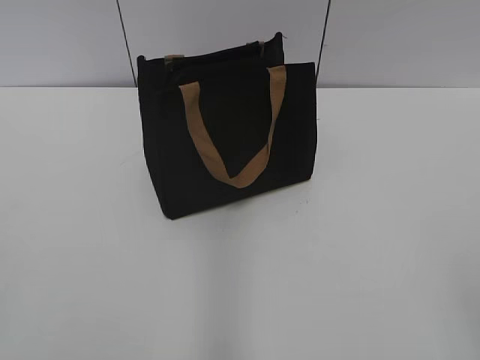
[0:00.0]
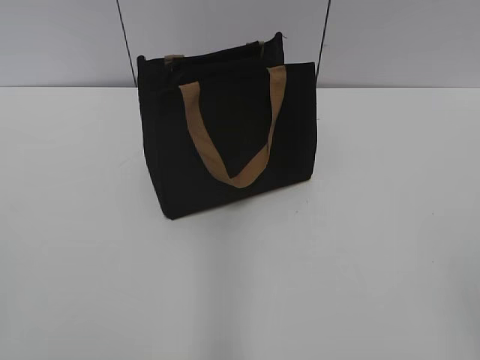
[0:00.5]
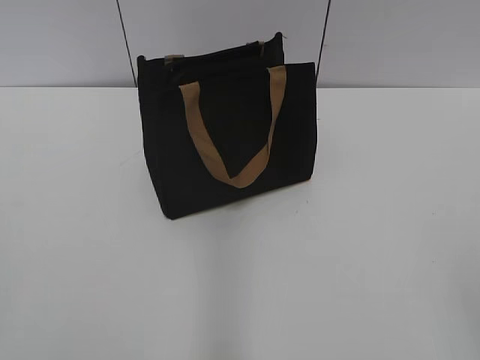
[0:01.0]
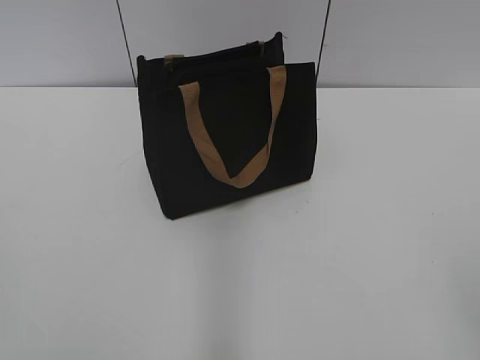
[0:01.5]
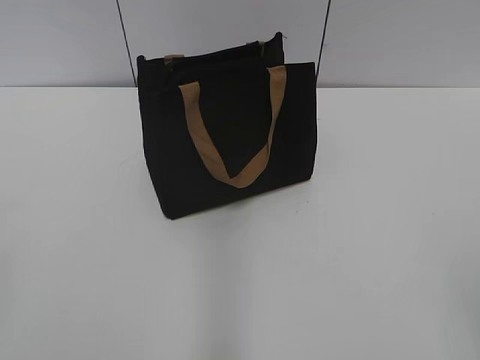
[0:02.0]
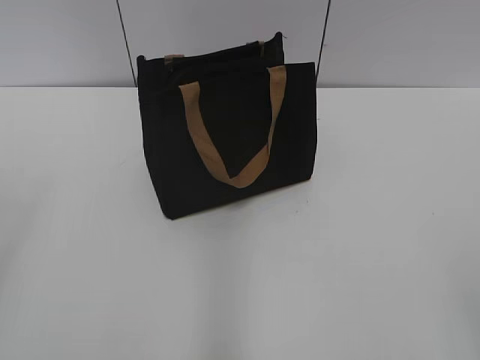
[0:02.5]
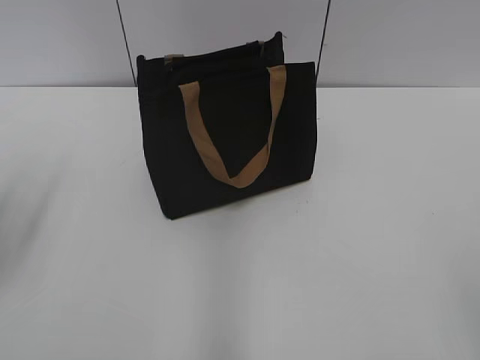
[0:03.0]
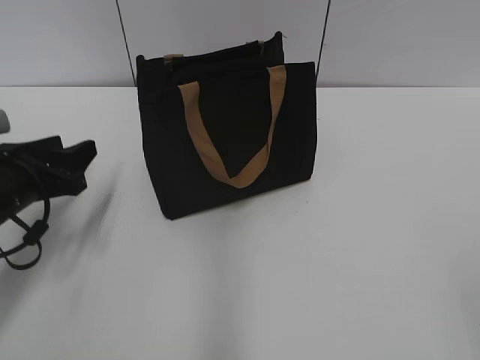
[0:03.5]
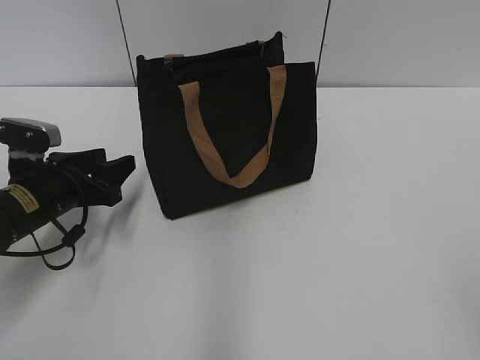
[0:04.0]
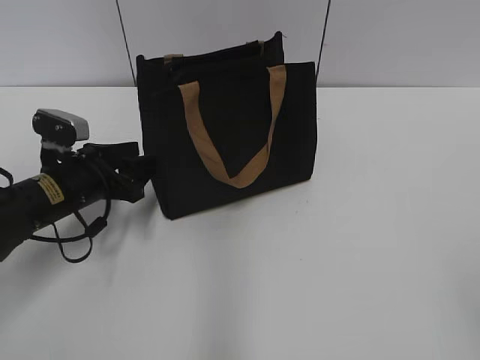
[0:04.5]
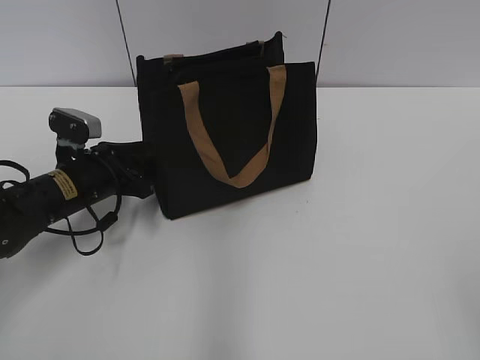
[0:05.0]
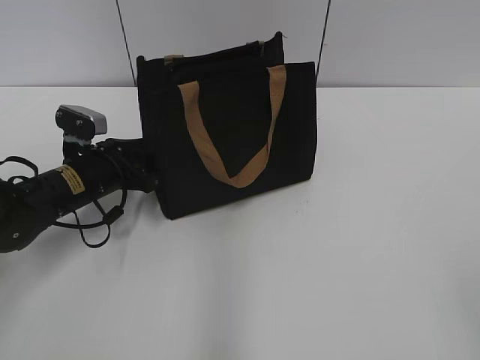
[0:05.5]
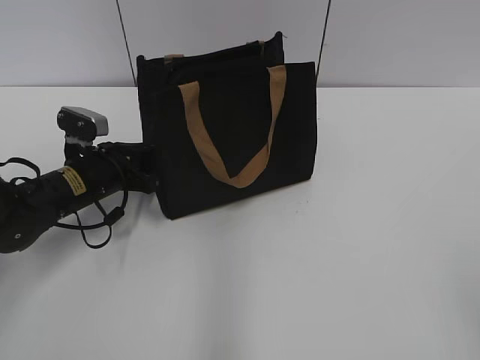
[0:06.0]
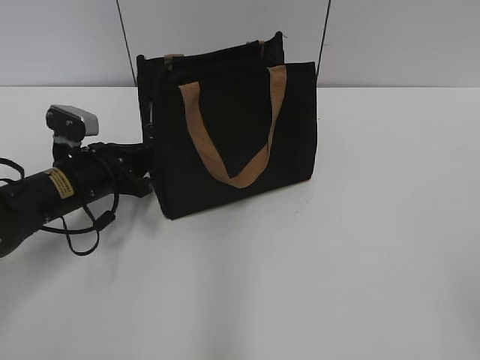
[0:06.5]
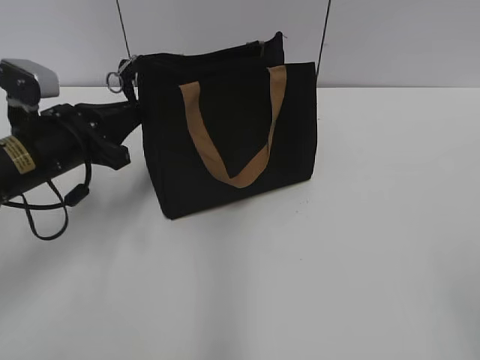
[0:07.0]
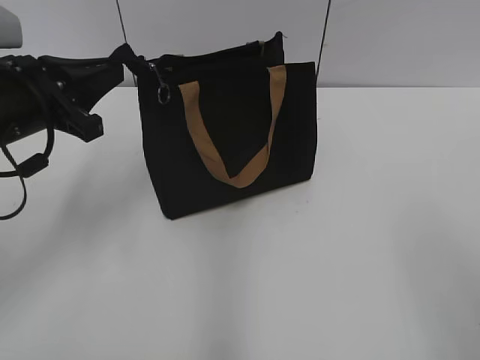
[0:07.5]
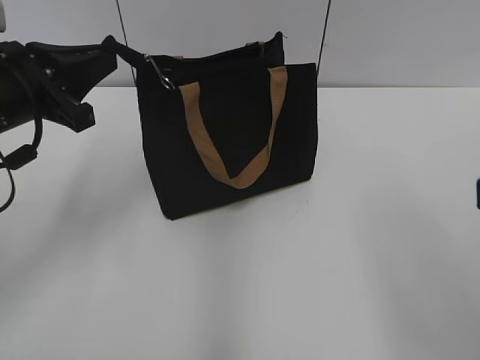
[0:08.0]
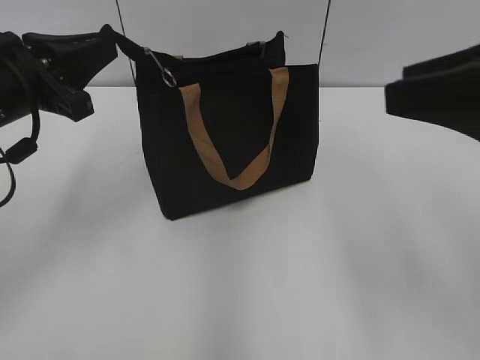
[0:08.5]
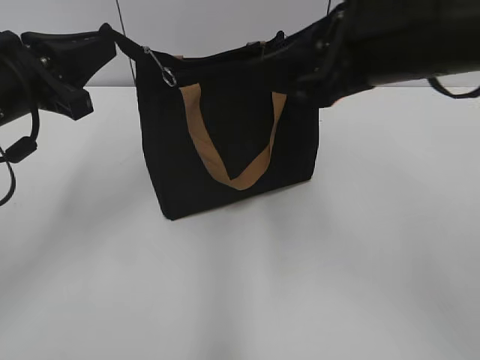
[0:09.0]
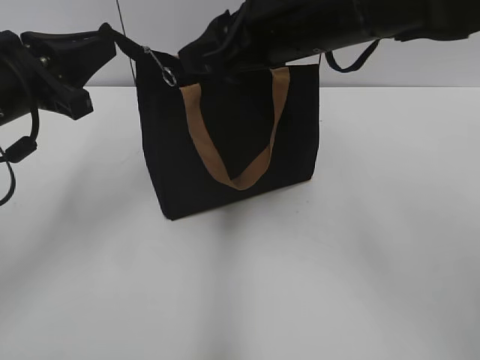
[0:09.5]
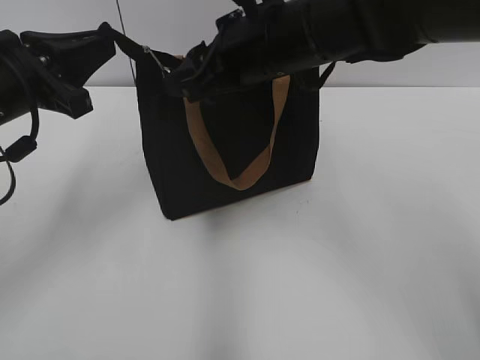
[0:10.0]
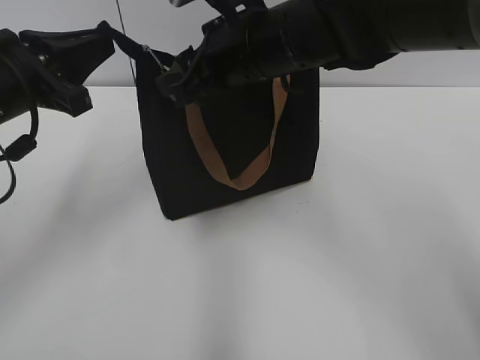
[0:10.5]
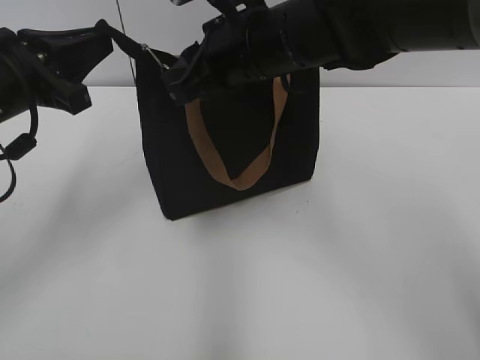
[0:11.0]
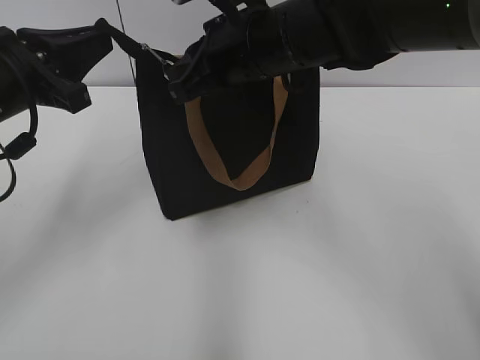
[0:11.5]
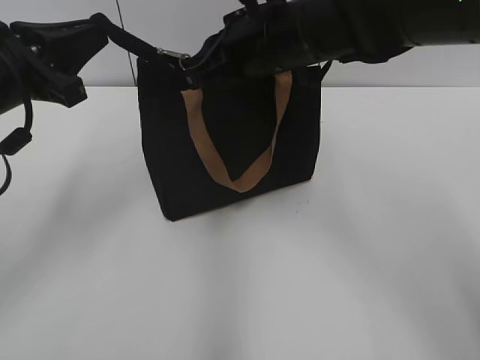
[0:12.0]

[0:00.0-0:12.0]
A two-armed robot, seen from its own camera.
0:02.0 to 0:04.0: The left gripper is displaced forward and downward by about 35 cm.
0:04.0 to 0:06.0: The left gripper is displaced forward by about 5 cm, and closes its fingers.
0:06.0 to 0:08.0: The left gripper shifts about 20 cm upward and backward. Meanwhile the right gripper goes roughly 10 cm forward.
0:08.0 to 0:10.0: The right gripper travels forward and to the left by approximately 30 cm.
0:10.0 to 0:12.0: The right gripper closes.

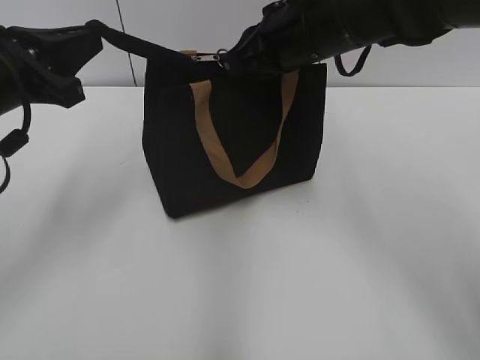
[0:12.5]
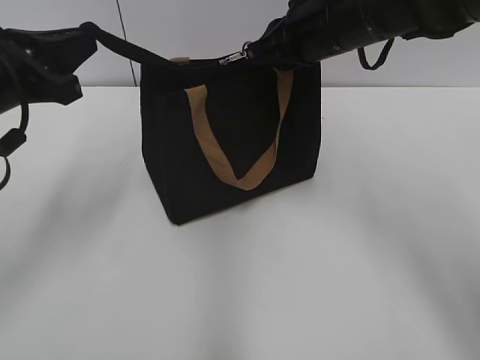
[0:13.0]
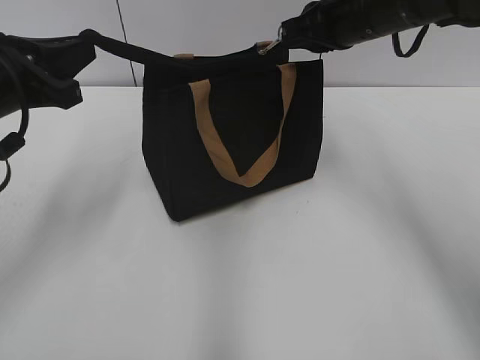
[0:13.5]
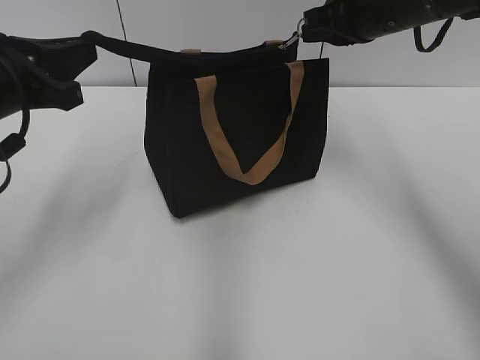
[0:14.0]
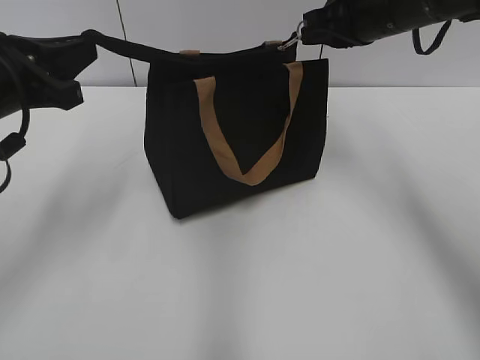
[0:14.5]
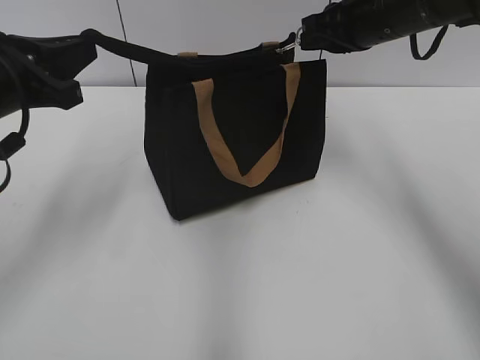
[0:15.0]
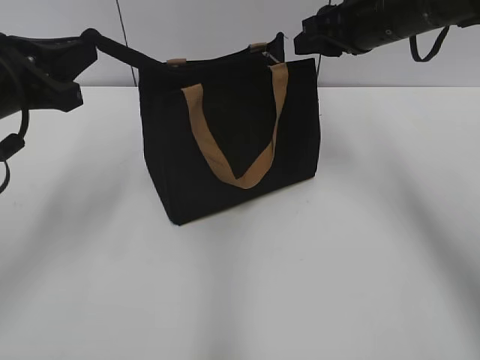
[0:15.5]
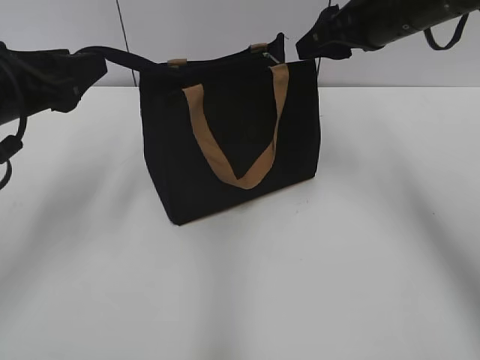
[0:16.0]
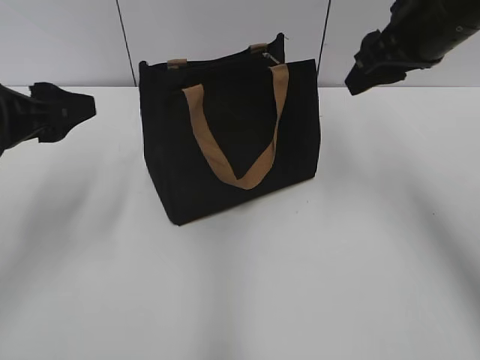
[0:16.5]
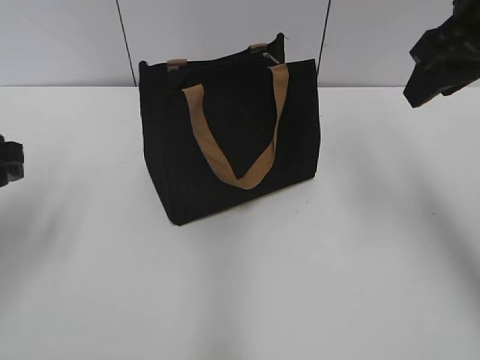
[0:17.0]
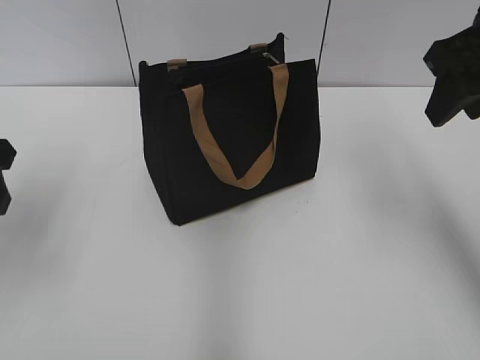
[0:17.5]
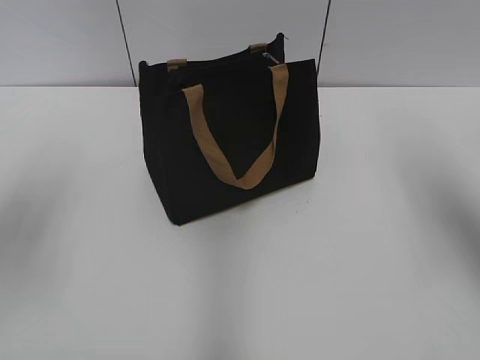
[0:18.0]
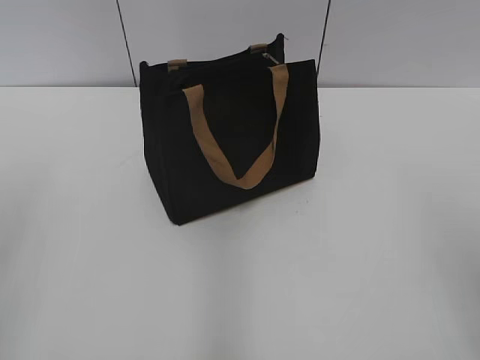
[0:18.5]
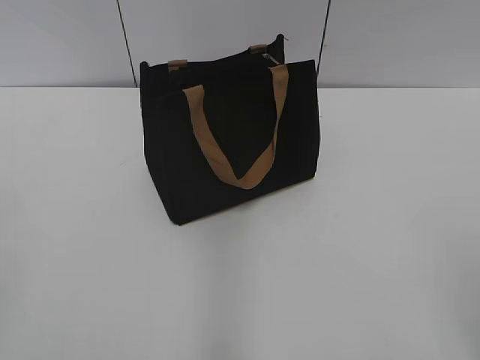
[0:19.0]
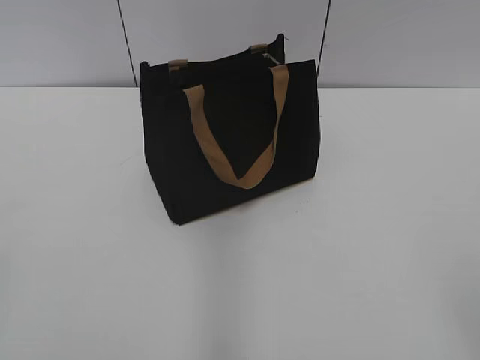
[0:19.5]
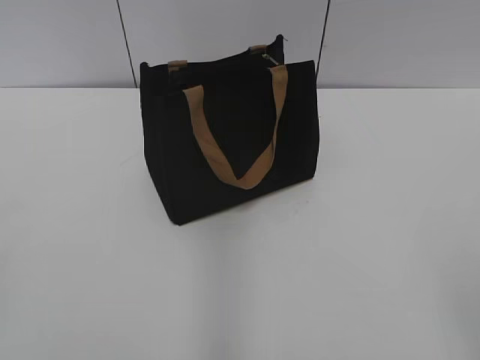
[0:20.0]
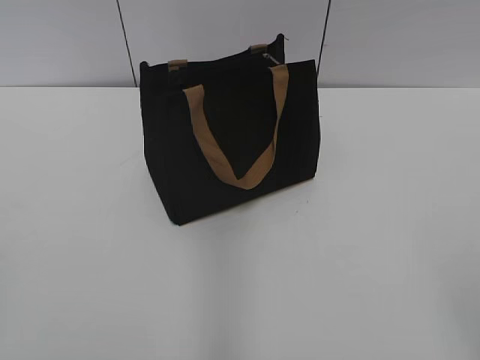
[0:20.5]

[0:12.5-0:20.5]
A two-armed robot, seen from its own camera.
Step, 0:12.5 to 0:15.0: Zip up the bag with your right hand.
Step, 0:15.5 to 0:16.5: Grab the zipper with your left hand.
0:12.5 to 0:14.5: The right gripper travels to the right by about 10 cm.
0:14.5 to 0:16.5: The right gripper changes place by some 5 cm, and opens up, while the left gripper opens its fingers.
0:16.5 to 0:18.5: The left gripper heads backward and upward, covering about 15 cm, while the right gripper moves backward, roughly 25 cm.

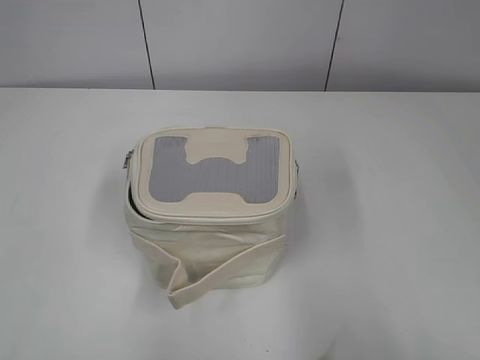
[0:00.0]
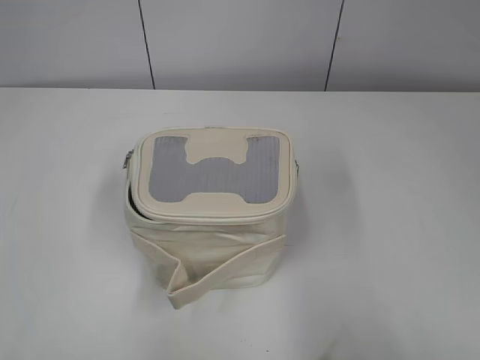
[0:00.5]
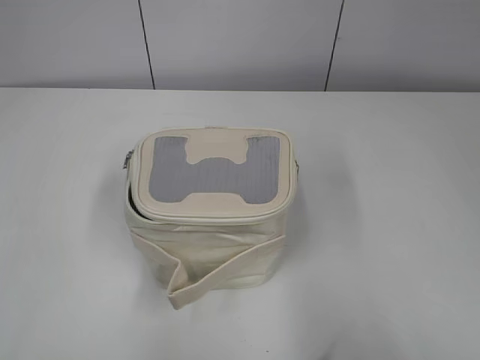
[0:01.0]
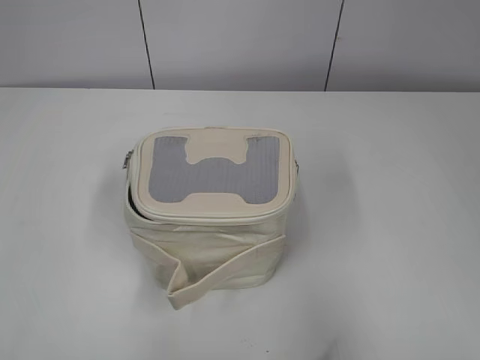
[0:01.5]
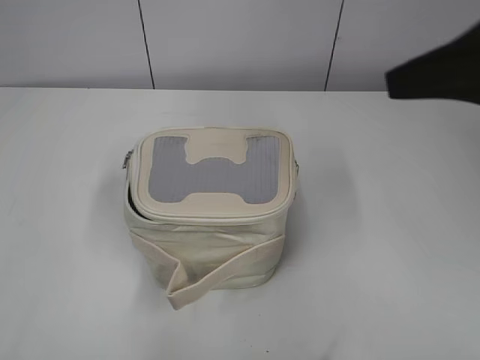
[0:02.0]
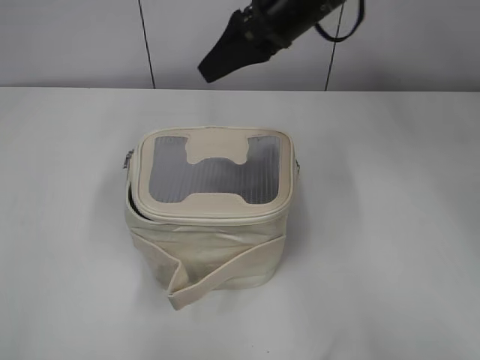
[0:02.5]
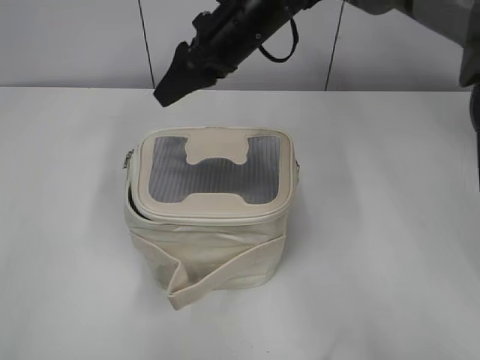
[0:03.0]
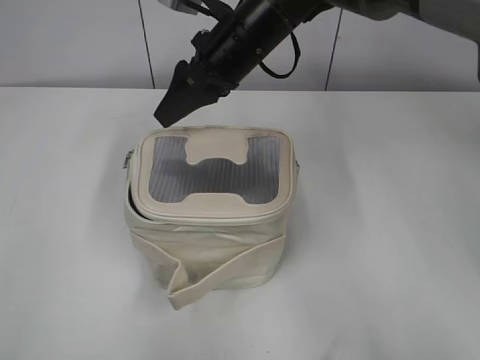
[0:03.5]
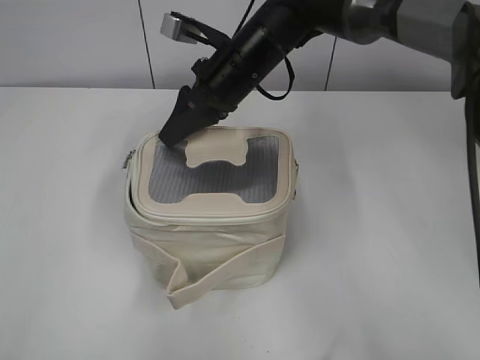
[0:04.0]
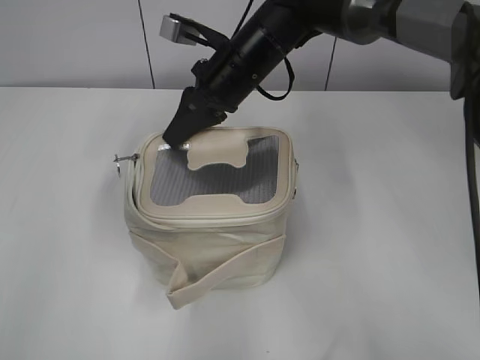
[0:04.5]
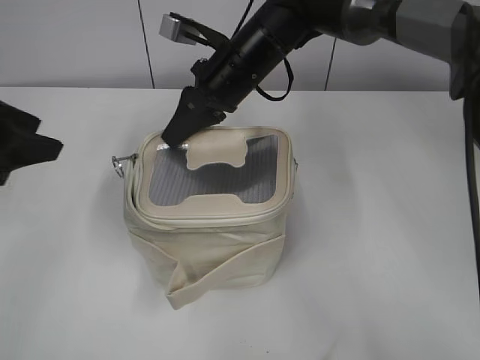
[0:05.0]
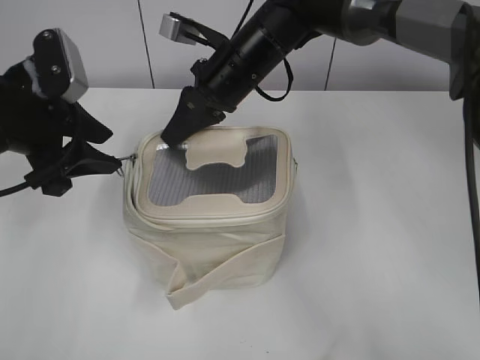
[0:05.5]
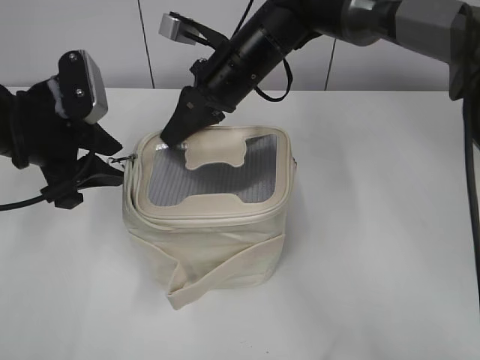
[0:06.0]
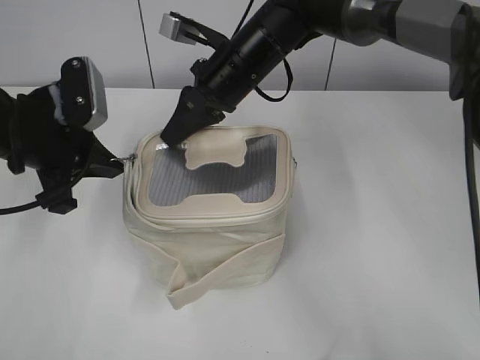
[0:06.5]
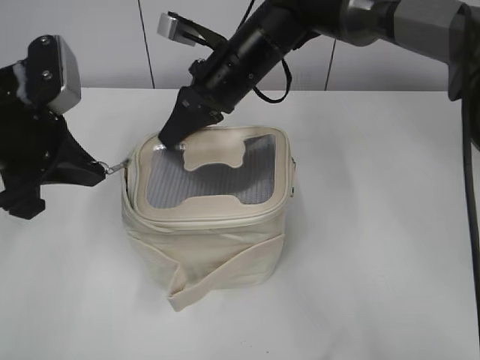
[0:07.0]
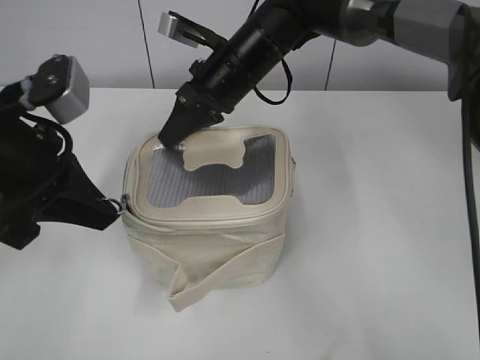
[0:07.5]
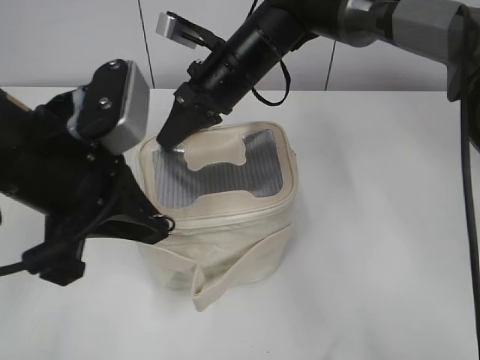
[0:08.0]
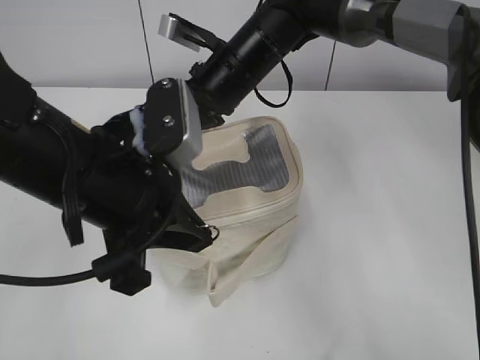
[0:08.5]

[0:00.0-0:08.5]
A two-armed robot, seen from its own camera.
0:02.0 to 0:04.0: The right gripper goes about 35 cm to the left, forward and downward.
0:04.0 to 0:06.5: The left gripper heads forward, covering roughly 30 cm, and closes its fingers; the right gripper closes.
0:06.5 to 0:08.5: The left gripper shifts some 15 cm to the right and backward.
